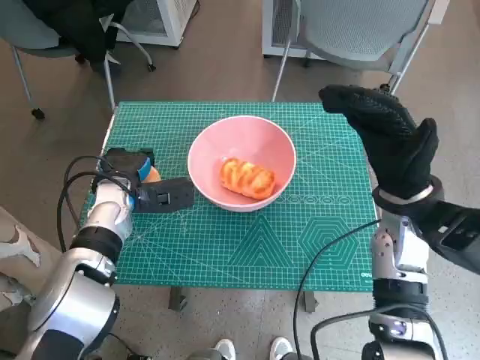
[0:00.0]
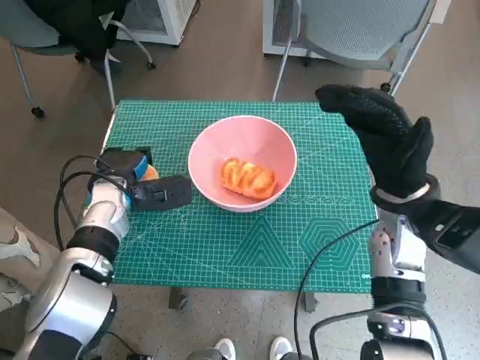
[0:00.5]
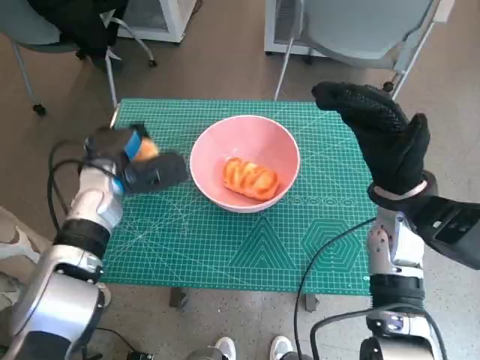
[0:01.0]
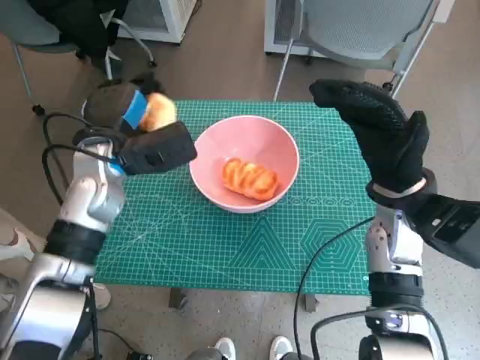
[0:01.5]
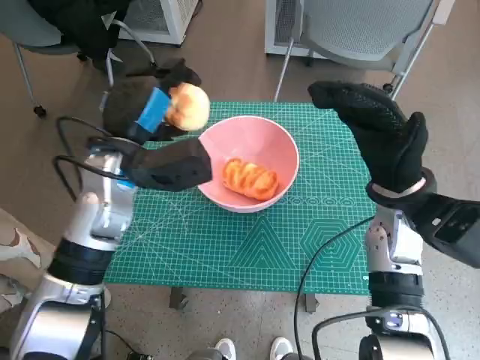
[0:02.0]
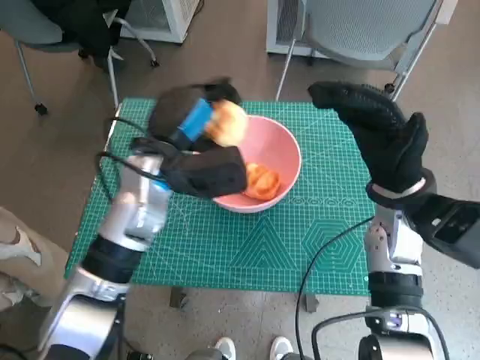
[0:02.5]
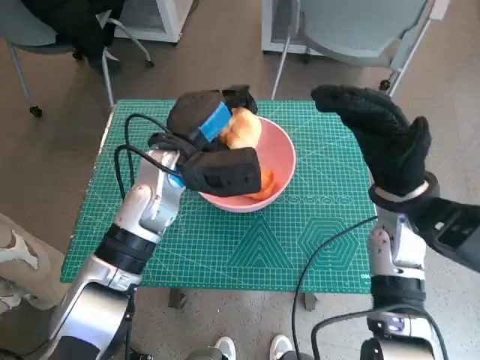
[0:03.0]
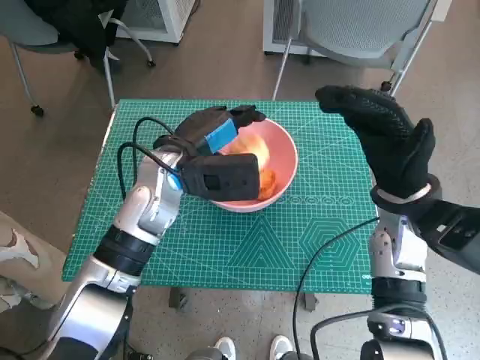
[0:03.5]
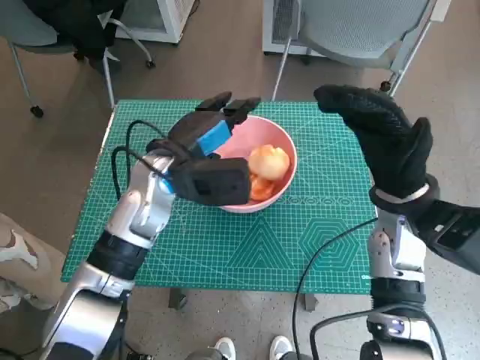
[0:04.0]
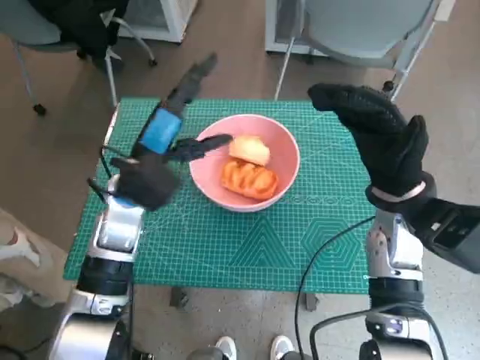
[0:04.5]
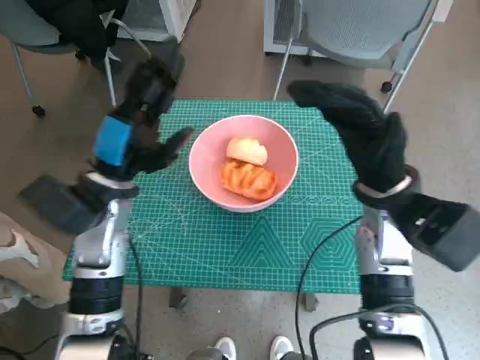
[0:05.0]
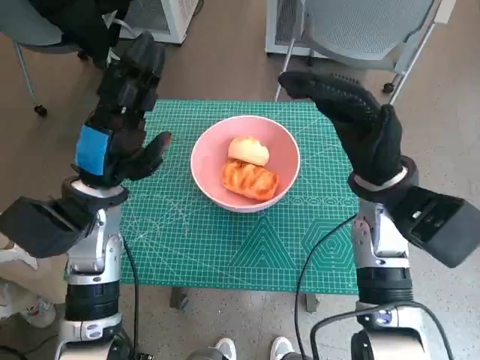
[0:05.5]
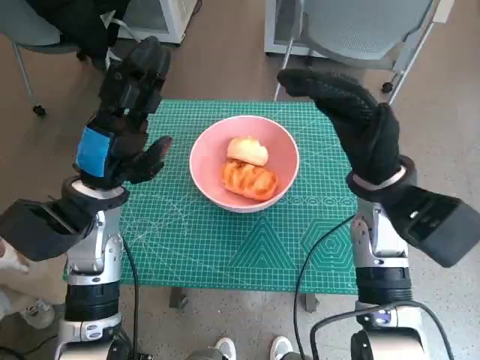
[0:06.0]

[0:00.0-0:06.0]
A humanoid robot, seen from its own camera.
Step, 0:00.0 to 0:03.5: Place the round bread in pink bowl with left hand.
0:00.0 to 0:02.0: The left hand moves upward, approximately 10 cm.
0:02.0 to 0:04.0: The left hand goes roughly 5 cm to the right.
0:04.0 to 0:06.0: The left hand heads to the left and backward, covering approximately 10 cm.
